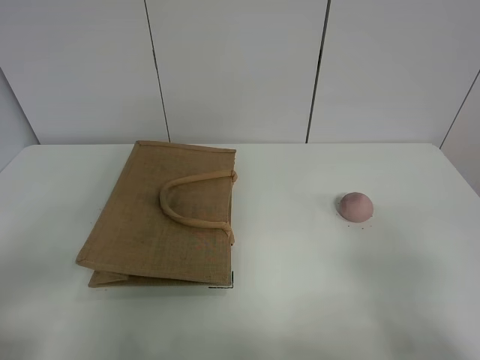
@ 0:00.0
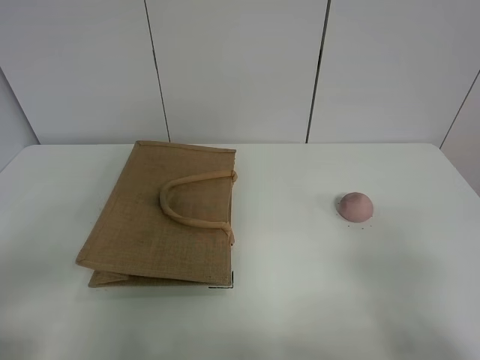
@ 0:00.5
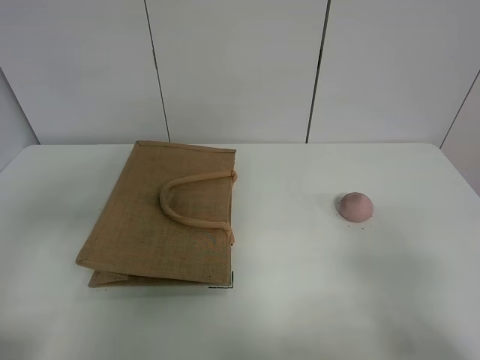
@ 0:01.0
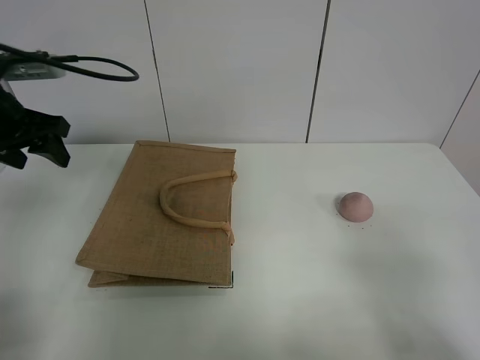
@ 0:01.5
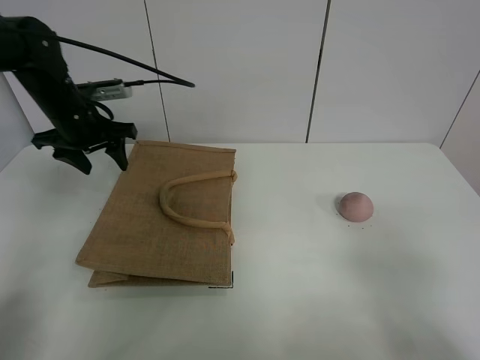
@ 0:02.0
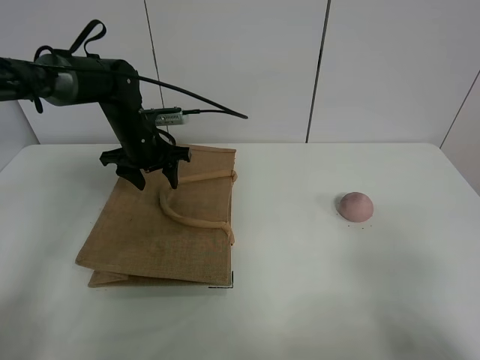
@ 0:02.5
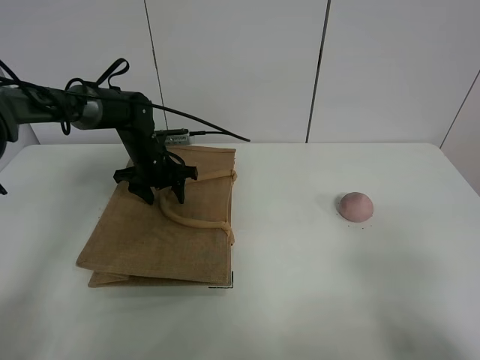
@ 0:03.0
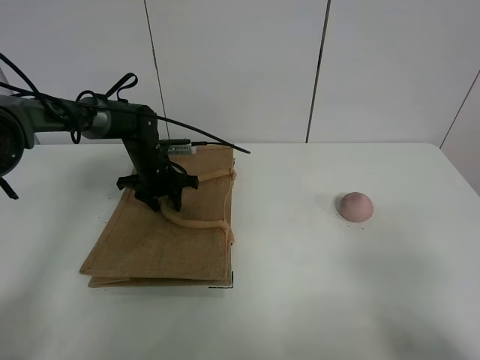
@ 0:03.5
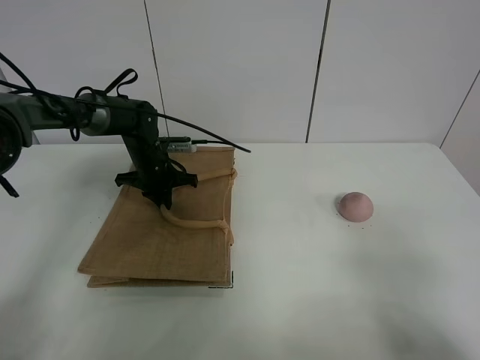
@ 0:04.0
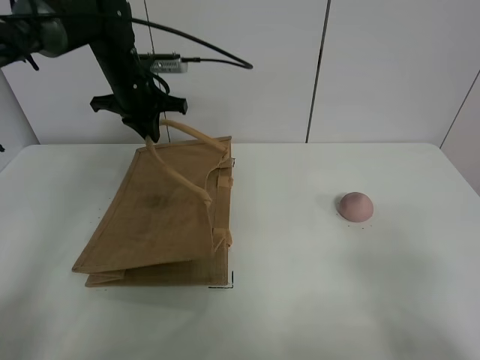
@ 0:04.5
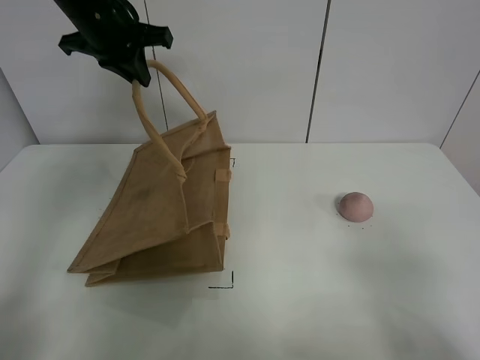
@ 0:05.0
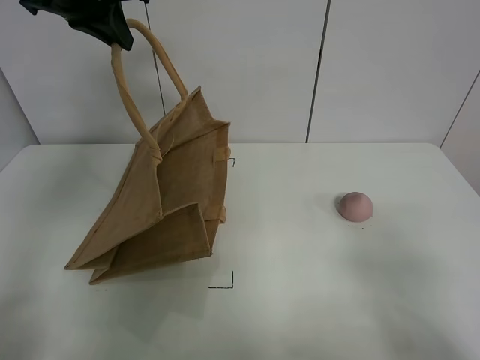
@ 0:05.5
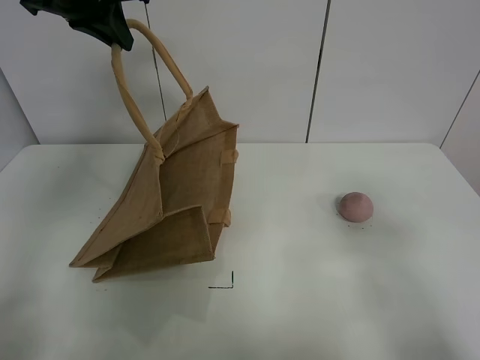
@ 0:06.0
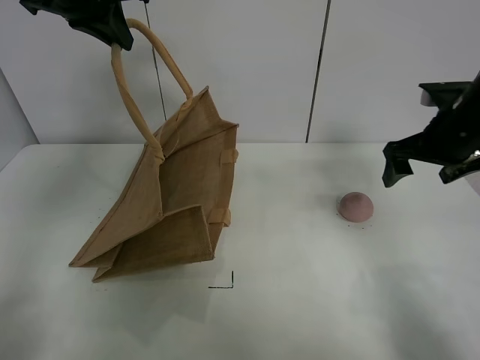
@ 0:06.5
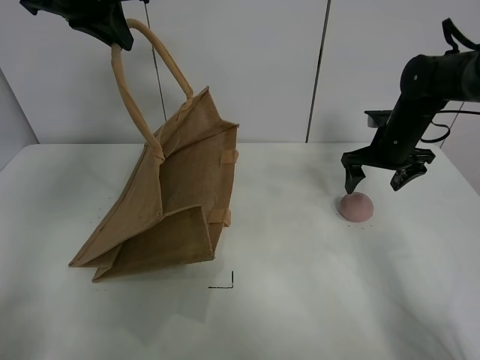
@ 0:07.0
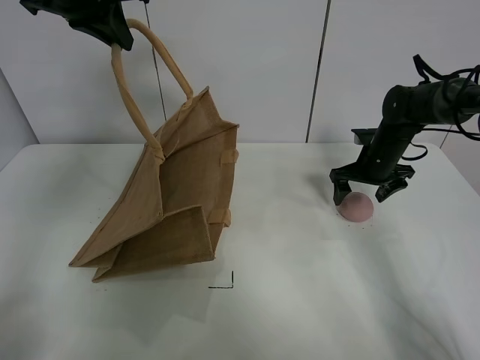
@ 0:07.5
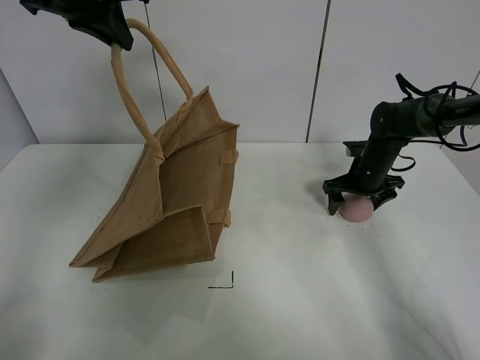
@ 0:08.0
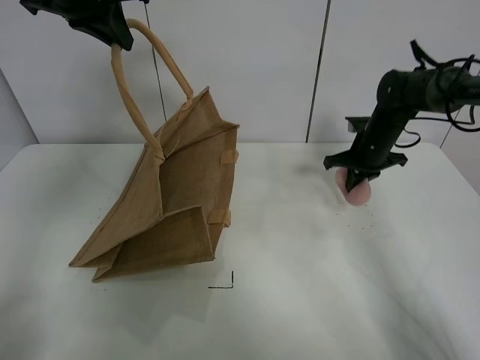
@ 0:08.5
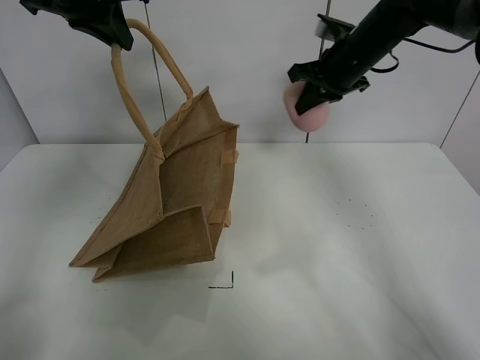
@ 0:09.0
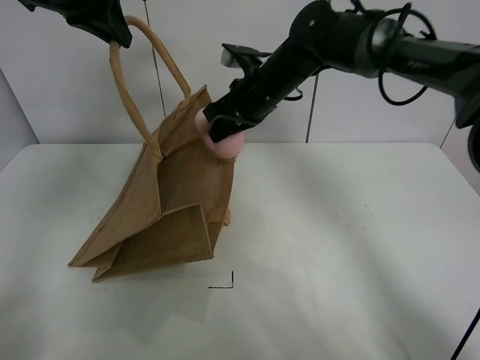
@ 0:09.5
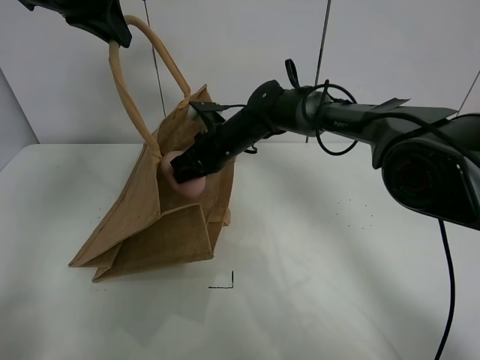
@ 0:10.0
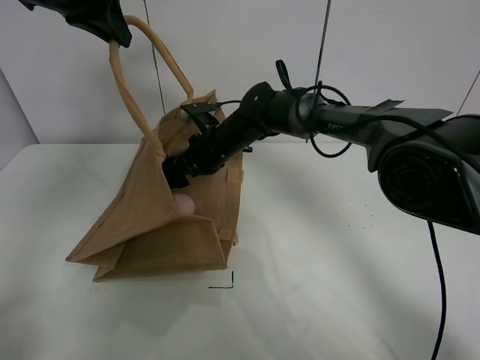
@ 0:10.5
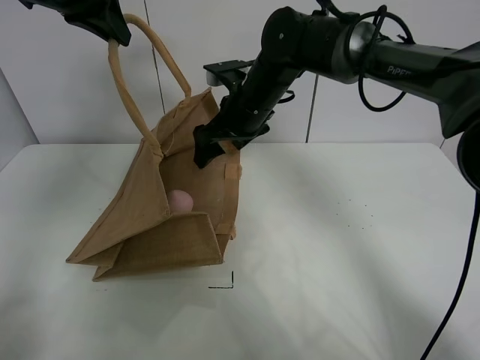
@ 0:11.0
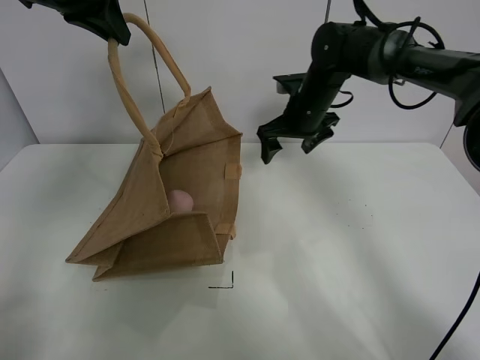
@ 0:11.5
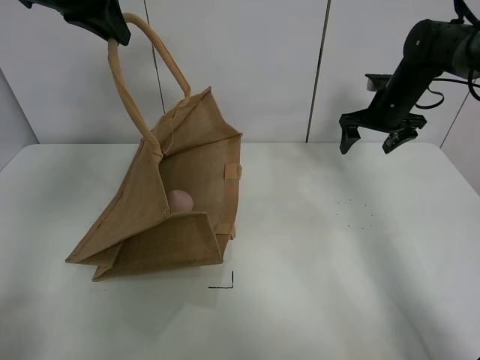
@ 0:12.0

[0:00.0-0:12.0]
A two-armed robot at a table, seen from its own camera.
Task of the whole recording: open the brown linen bag and put the peach in the bag.
Step, 0:00.0 to 0:05.5: Lift the handbag with left gripper.
Step, 0:06.0 to 0:08.0: Grasp the peach with right gripper.
Step, 0:08.5 to 0:11.0: Place the peach in the handbag with right gripper.
0:00.0 to 0:02.0: The left gripper heads forward, covering some 40 cm.
0:02.0 to 0:04.0: The left gripper travels downward and to the right by roughly 15 cm, and closes its fingers.
0:04.0 to 0:06.0: The left gripper is displaced upward by about 30 cm; the right gripper moves forward, about 10 cm.
0:06.0 to 0:08.0: The right gripper goes about 40 cm forward and downward.
0:08.0 to 0:10.0: The right gripper goes approximately 25 cm to the left, and closes.
0:10.0 to 0:12.0: The right gripper shifts about 30 cm to the right, and opens.

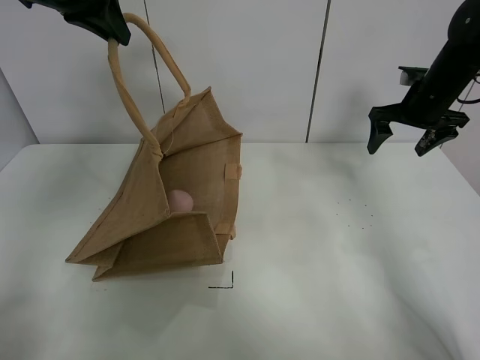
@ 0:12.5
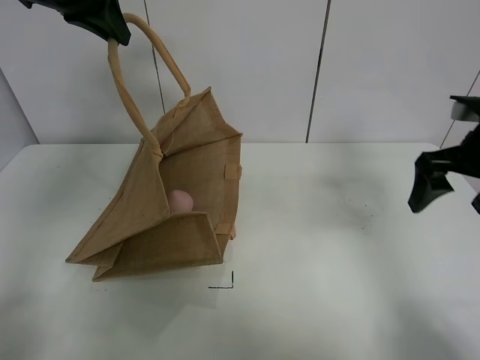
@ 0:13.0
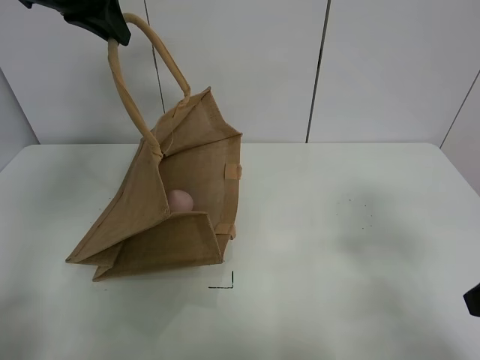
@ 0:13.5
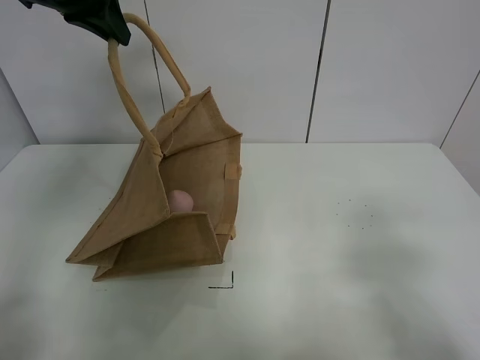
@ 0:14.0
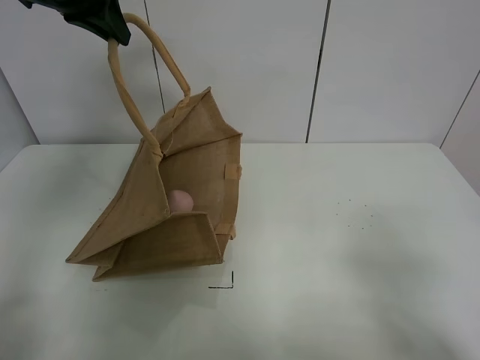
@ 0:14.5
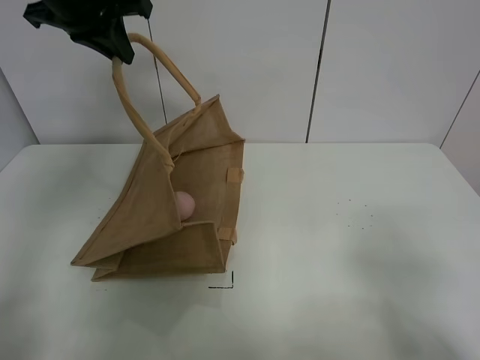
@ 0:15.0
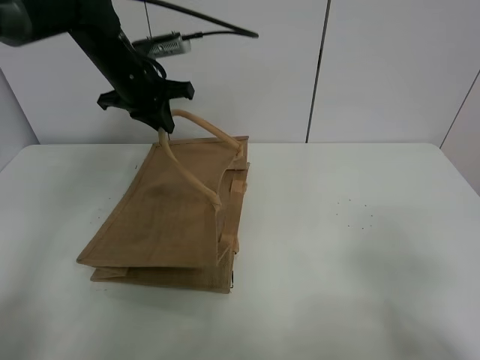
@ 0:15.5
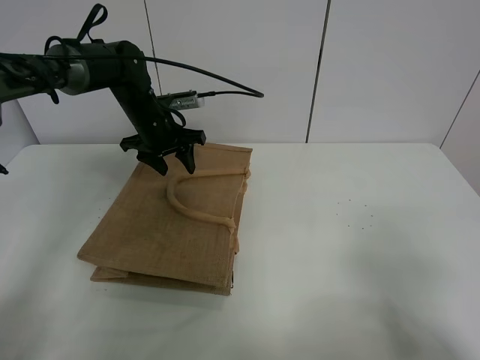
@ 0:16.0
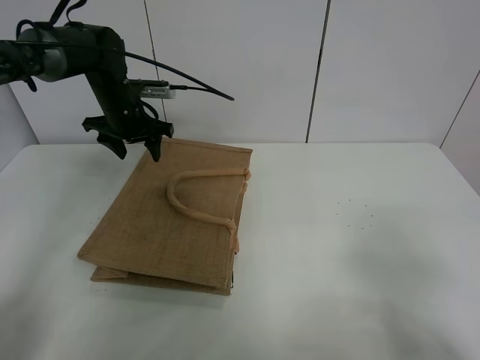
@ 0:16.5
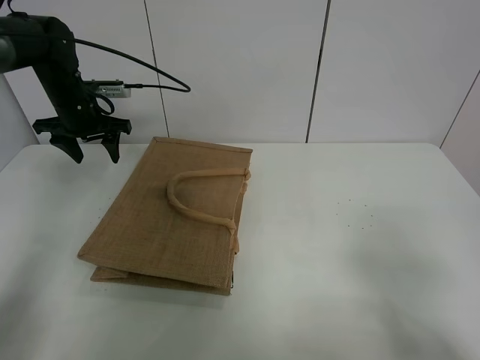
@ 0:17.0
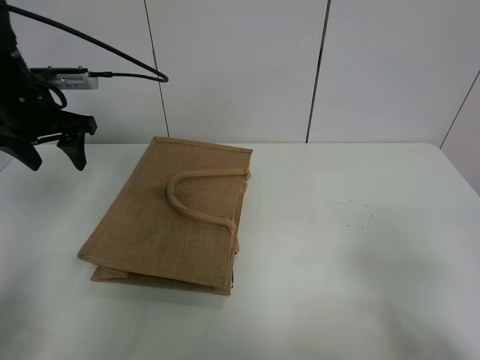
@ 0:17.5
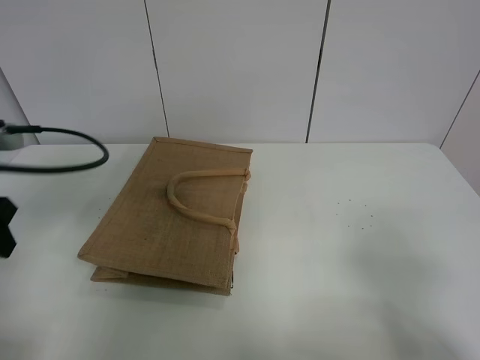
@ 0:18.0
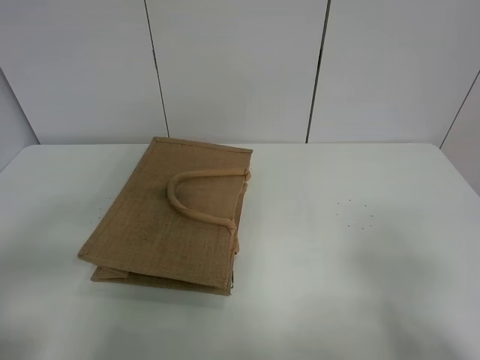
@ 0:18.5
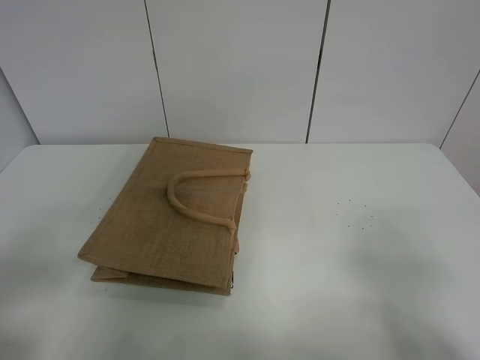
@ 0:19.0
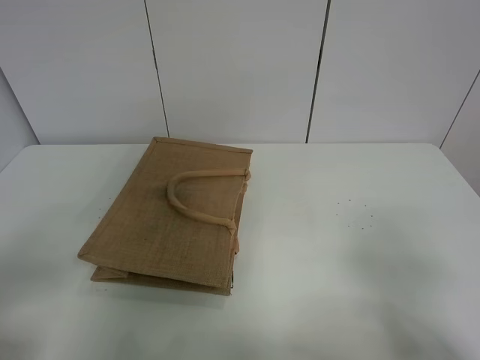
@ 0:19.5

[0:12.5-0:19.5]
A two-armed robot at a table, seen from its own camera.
Task of the whole recording: open the brown linen bag and put the peach in the bag.
Step, 0:12.5 to 0:16.5: Put down the handbag with left grippe.
0:12.5 to 0:14.5: The right gripper travels backward by approximately 40 cm.
0:14.5 to 0:16.0: The left gripper moves downward, about 25 cm, and opens its fingers.
0:16.0 to 0:17.5: The left gripper goes approximately 20 cm to the left, backward and upward.
0:17.5 to 0:19.5: The left gripper goes some 35 cm backward.
